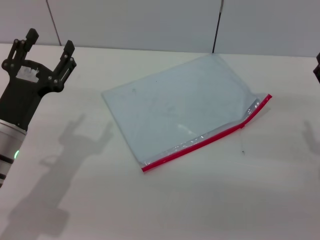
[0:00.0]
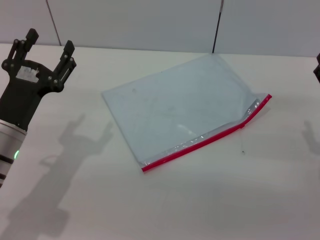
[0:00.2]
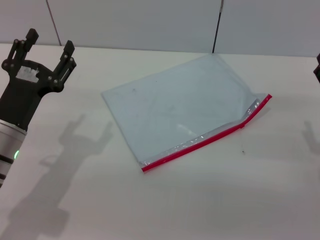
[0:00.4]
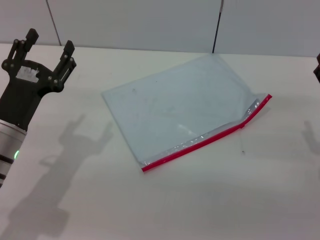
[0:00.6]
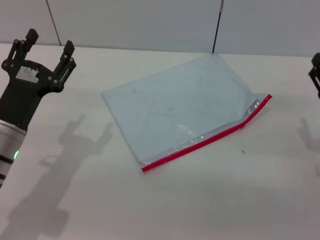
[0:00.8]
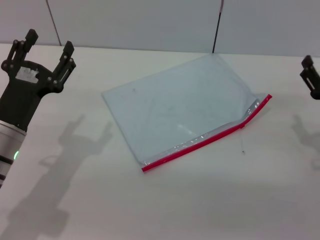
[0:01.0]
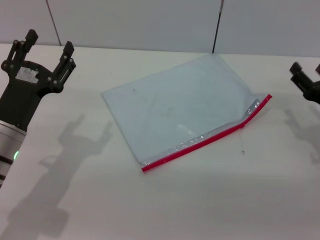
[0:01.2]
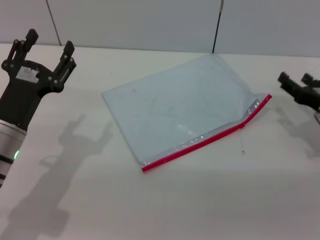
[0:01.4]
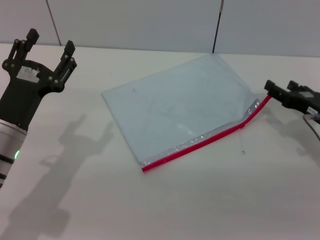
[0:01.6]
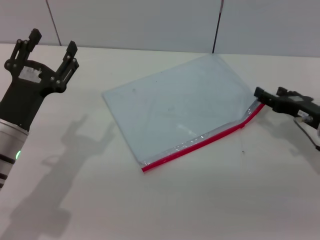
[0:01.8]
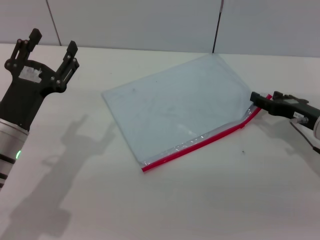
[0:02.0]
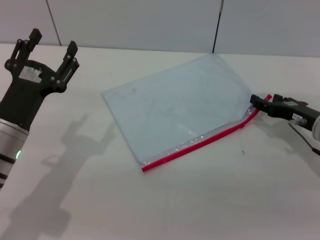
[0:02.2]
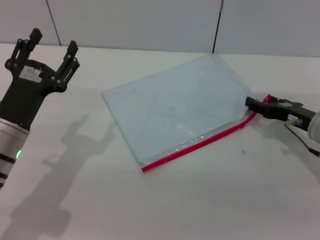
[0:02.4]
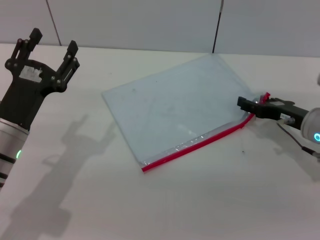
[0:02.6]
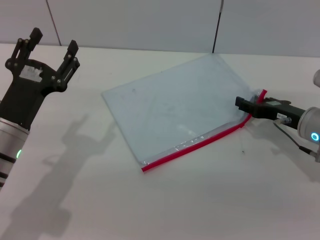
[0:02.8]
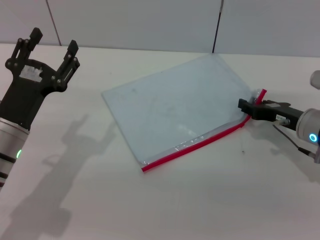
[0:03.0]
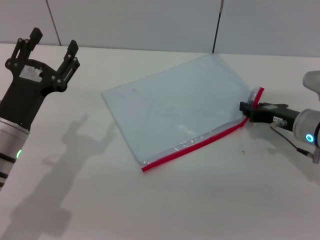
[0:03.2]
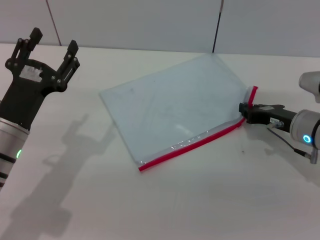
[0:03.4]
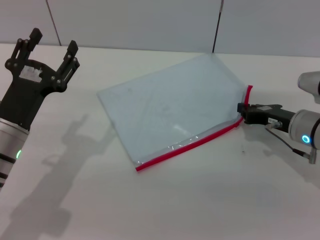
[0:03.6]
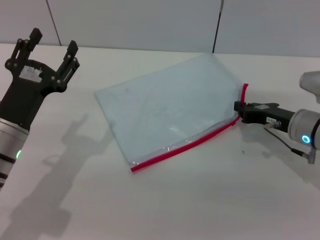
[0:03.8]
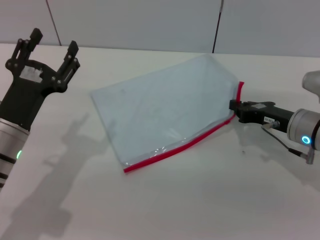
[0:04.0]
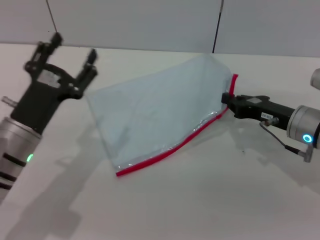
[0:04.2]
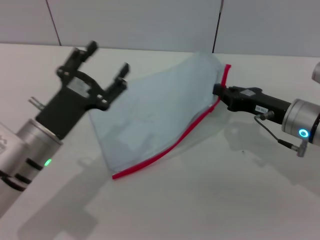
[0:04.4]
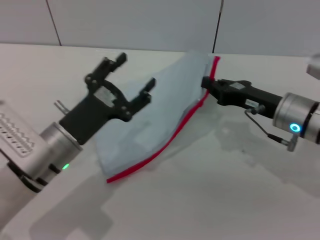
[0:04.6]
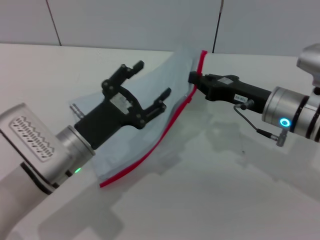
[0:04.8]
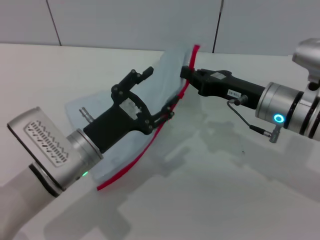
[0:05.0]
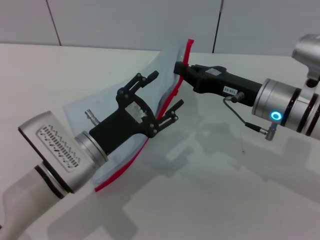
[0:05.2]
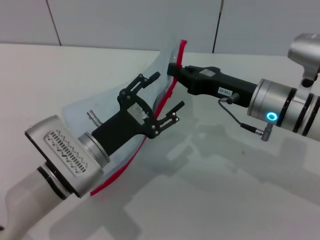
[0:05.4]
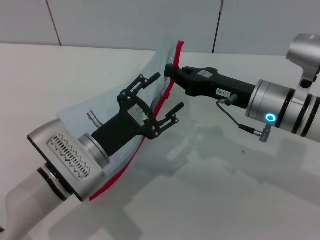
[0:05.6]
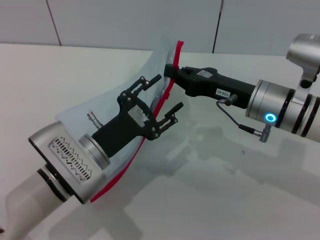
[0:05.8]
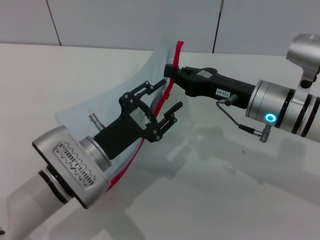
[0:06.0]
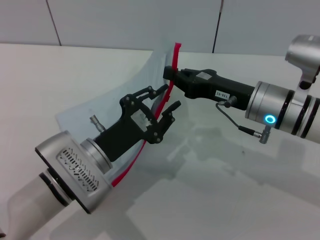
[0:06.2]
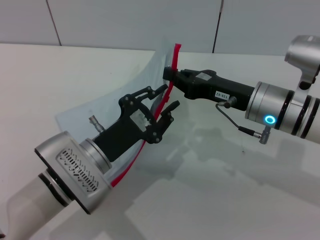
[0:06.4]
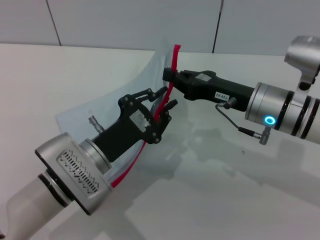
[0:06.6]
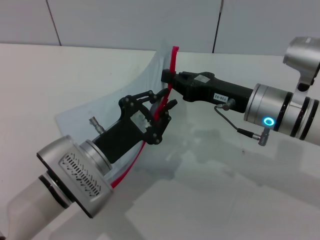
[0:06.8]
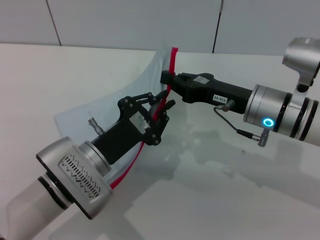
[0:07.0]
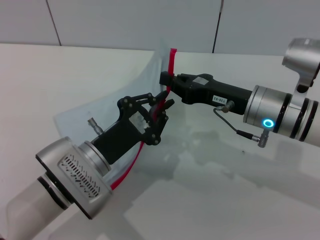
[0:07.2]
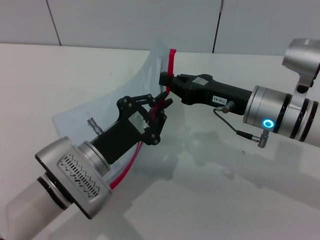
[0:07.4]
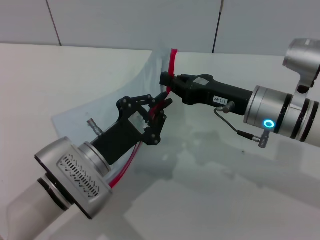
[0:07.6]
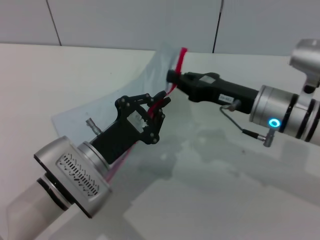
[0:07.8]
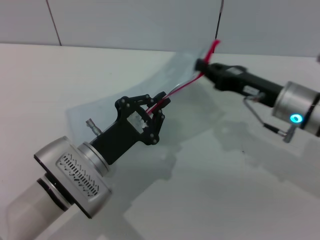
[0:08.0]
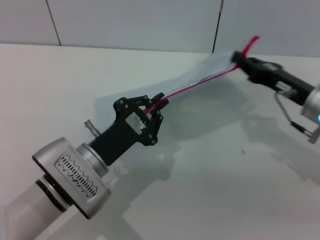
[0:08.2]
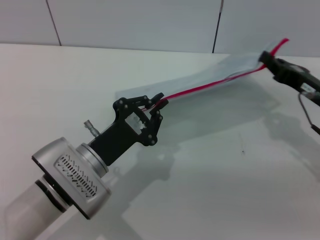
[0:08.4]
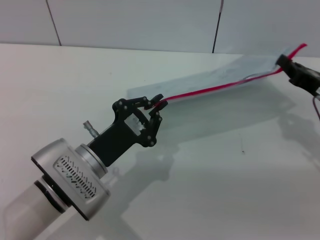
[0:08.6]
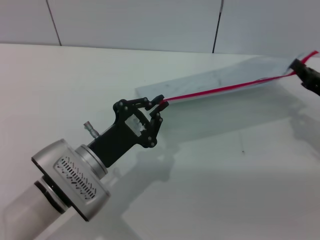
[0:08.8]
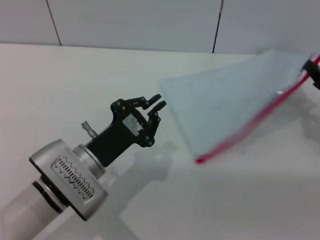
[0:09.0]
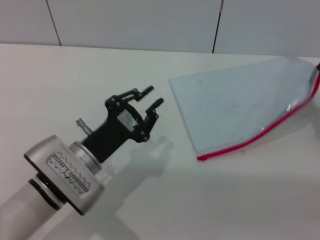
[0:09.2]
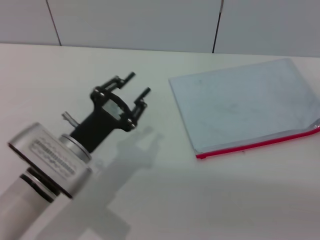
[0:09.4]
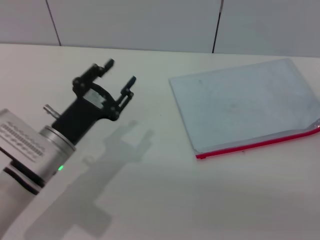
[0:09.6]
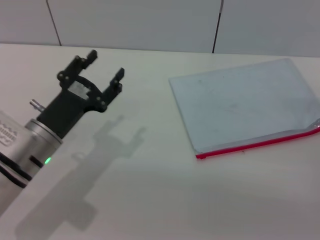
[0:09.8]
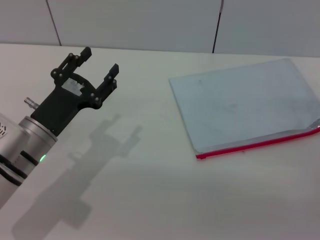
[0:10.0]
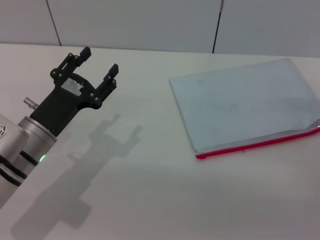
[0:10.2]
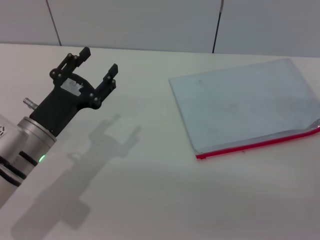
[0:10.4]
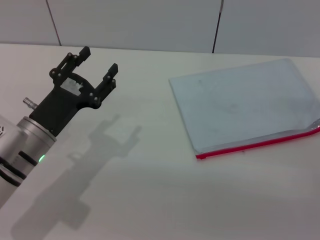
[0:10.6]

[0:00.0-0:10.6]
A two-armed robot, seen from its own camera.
Step, 0:00.0 to 0:04.4: Pick up the transparent plastic bag with the right gripper.
Step, 0:04.8 to 0:09.2: Pulling up the zipper on the transparent plastic bag with the left gripper to close it.
Step, 0:09.4 to 0:09.8: Place the transparent plastic bag.
0:00.0 to 0:01.6: The right gripper heads forward, covering about 5 cm.
0:01.6 to 0:03.0: The grippers stay close to where they were, moving slightly.
0:03.0 to 0:04.6: The left gripper travels to the right by roughly 5 cm. The right gripper moves approximately 5 cm, and closes up.
0:04.6 to 0:06.0: The right gripper ends up about 5 cm from where it was.
0:06.0 to 0:07.6: The left gripper closes its fingers.
0:07.6 to 0:09.0: The right gripper is displaced to the right by about 15 cm.
0:09.0 to 0:10.6: The left gripper heads to the left, covering roughly 5 cm, and opens. The right gripper shifts about 5 cm backward, and opens.

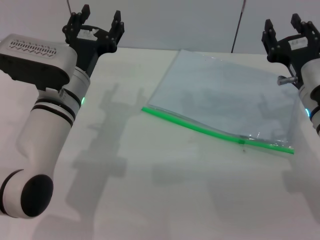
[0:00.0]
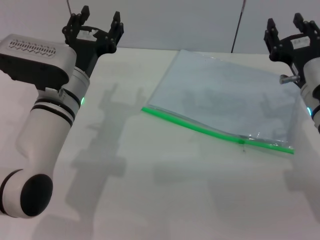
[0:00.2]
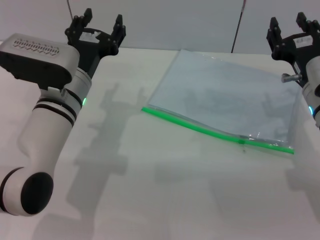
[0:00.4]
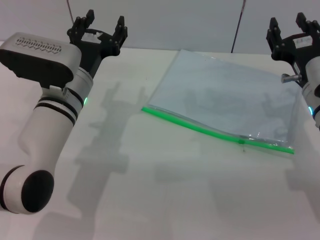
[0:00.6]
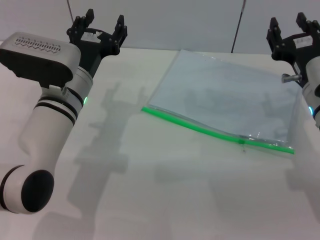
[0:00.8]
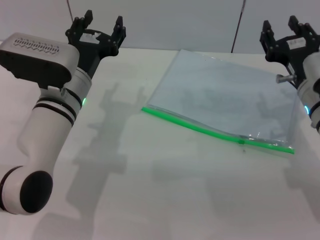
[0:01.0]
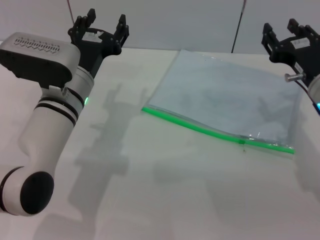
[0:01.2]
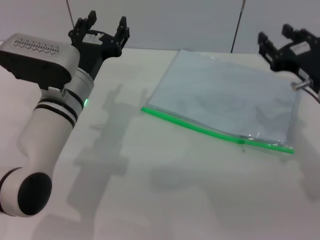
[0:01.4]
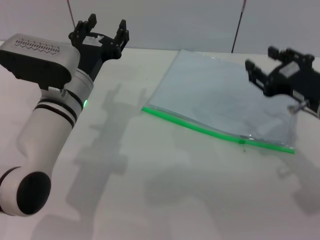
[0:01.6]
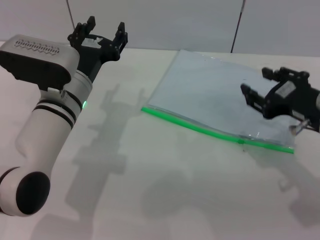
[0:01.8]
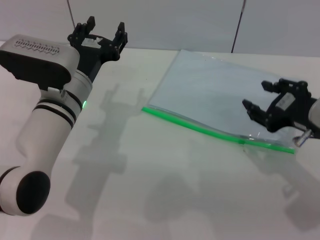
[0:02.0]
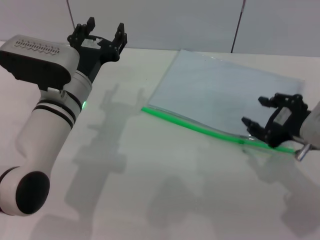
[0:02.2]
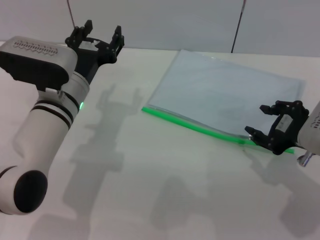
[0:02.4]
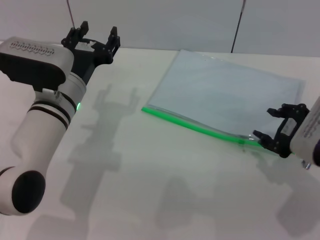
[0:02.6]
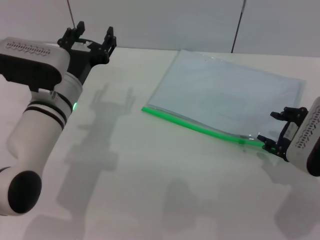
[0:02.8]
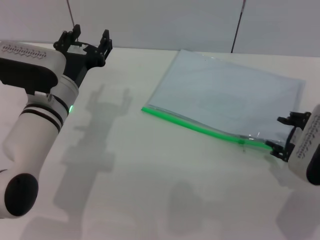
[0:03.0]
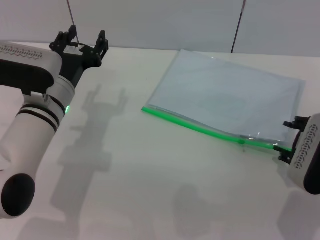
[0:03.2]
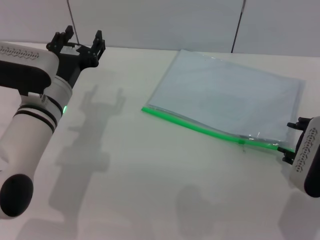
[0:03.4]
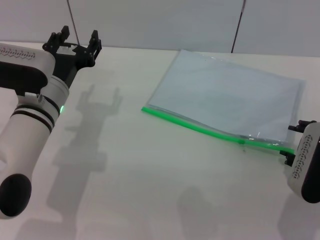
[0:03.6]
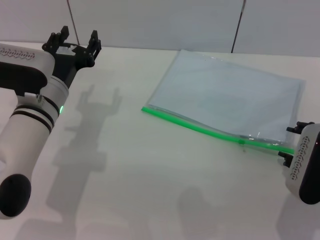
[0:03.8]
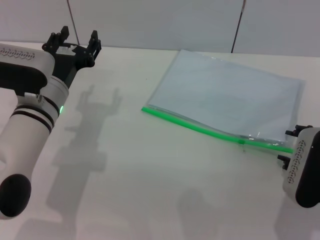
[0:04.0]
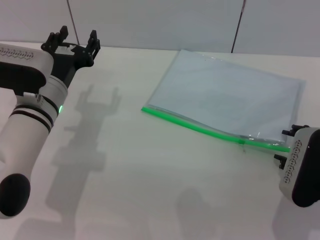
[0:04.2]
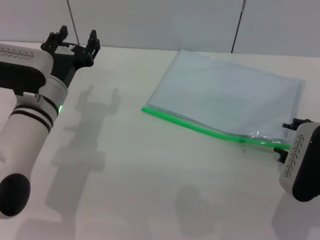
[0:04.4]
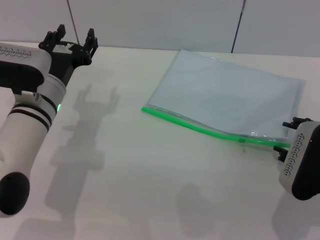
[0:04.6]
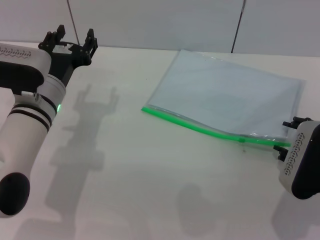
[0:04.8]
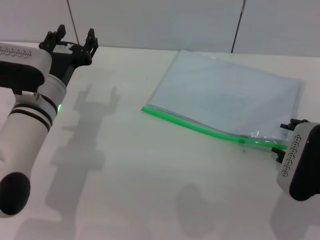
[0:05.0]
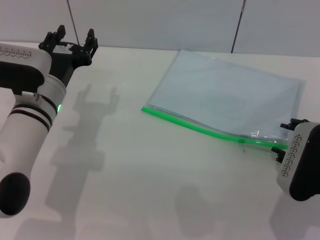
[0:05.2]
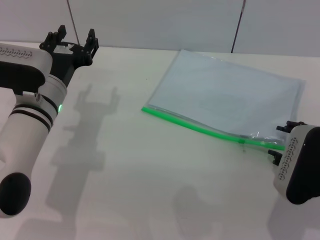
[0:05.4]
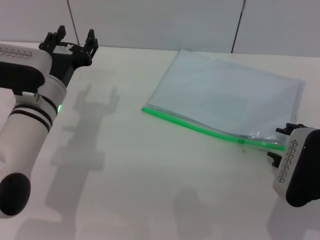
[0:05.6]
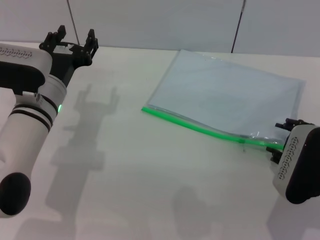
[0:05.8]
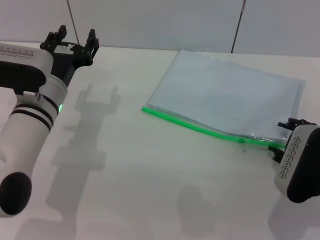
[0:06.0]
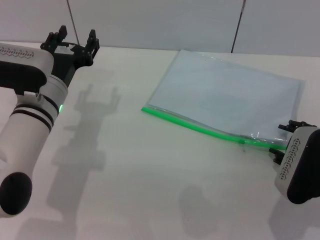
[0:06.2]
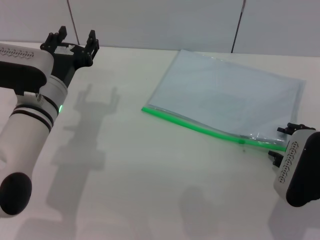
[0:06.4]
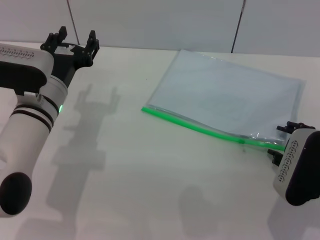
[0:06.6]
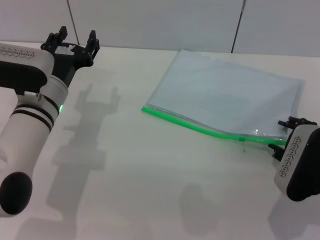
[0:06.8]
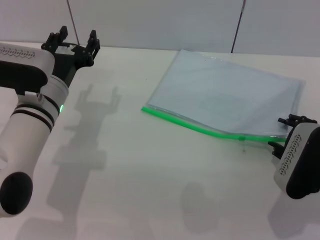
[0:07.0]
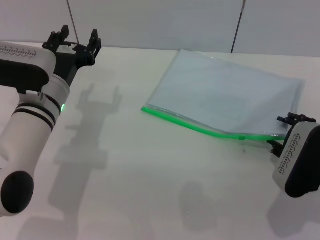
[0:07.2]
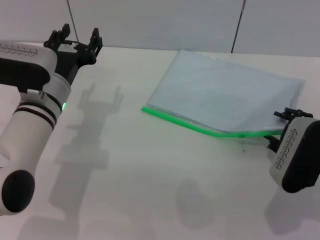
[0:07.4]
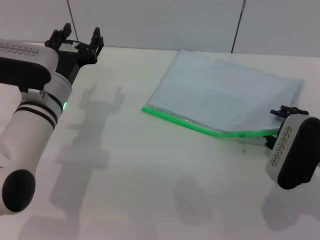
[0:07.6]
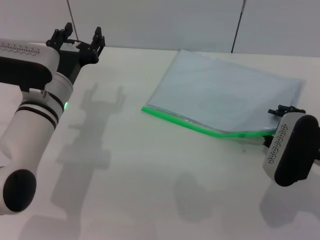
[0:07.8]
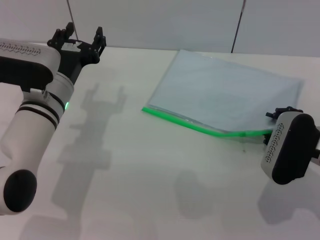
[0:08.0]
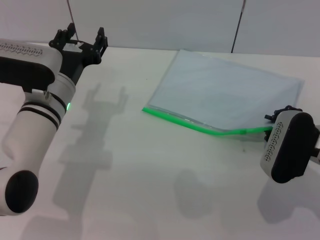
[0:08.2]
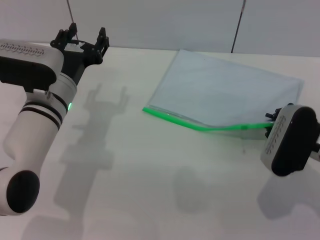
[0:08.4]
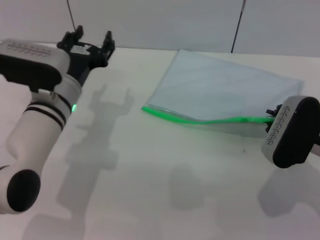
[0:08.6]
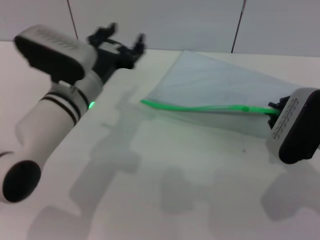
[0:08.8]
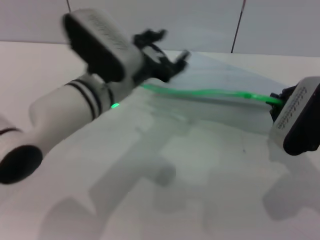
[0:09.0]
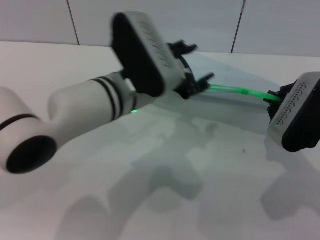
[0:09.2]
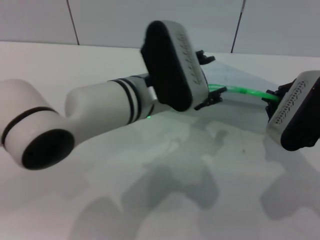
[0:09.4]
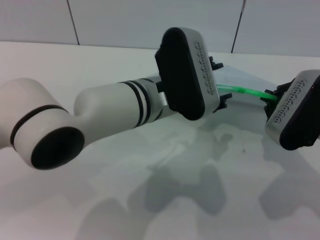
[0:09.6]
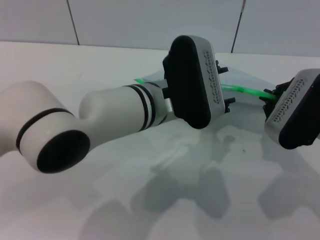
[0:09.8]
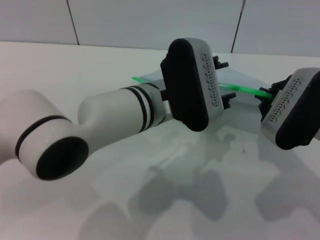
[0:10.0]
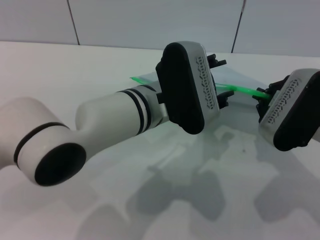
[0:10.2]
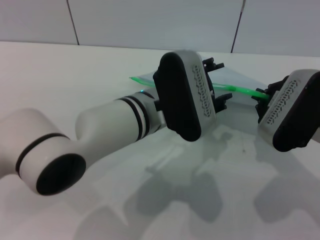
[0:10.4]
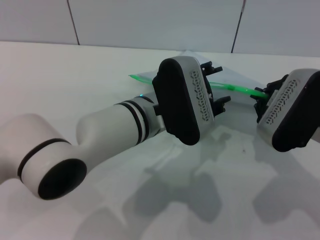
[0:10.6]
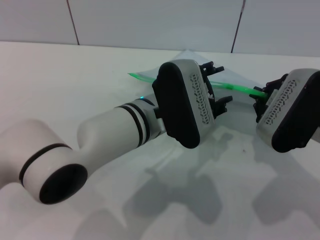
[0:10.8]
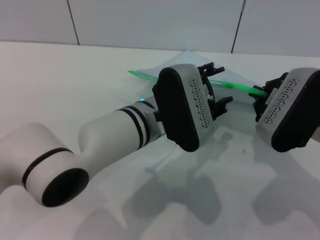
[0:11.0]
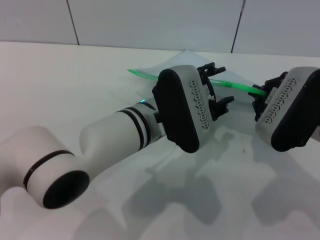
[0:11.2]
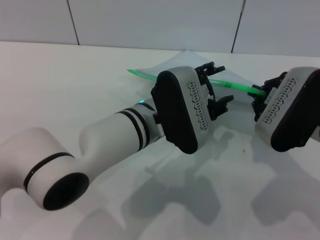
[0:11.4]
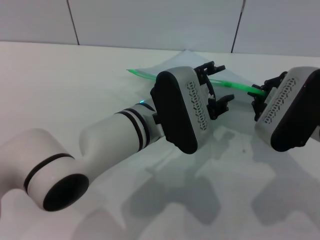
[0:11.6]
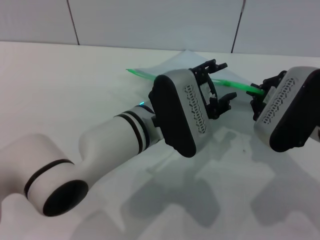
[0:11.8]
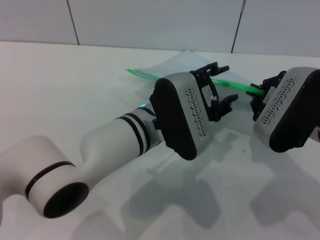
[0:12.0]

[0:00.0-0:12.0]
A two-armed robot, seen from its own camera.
Step, 0:00.0 to 0:09.2: Pick up the transparent plastic bag with the right gripper.
0:00.0 to 0:01.6: The right gripper changes place by about 5 cm.
0:03.0 to 0:04.4: There are only small adjustments of the grippers.
0:04.4 to 0:06.0: The two grippers keep their place.
0:06.0 to 0:07.6: The grippers stay close to where they were, moving slightly.
0:07.6 to 0:09.0: The left gripper is displaced to the right by approximately 10 cm, while the right gripper closes up.
0:09.0 to 0:10.4: The left gripper goes some 5 cm to the right.
0:10.4 to 0:12.0: The grippers stay close to where they were, moving slightly.
